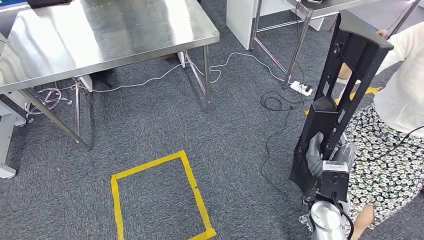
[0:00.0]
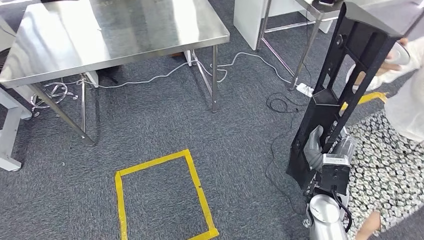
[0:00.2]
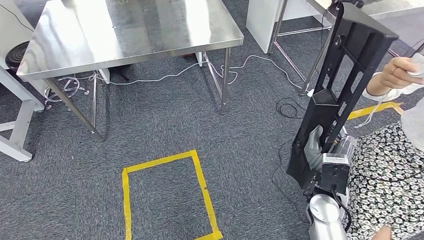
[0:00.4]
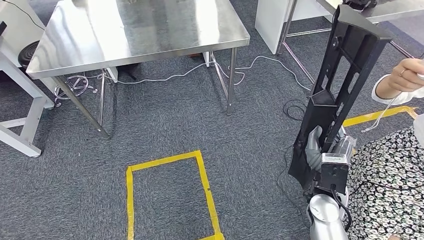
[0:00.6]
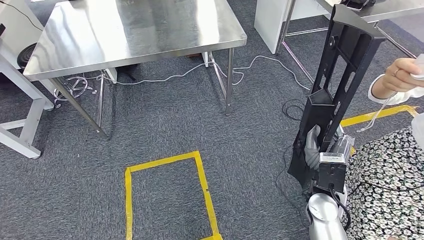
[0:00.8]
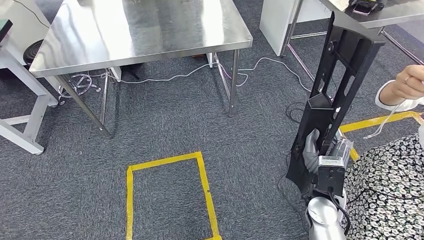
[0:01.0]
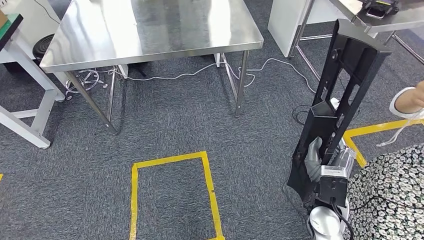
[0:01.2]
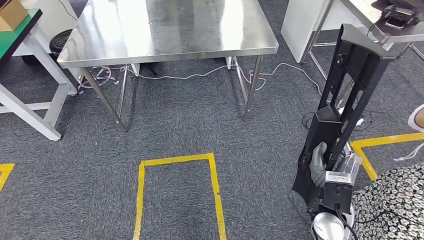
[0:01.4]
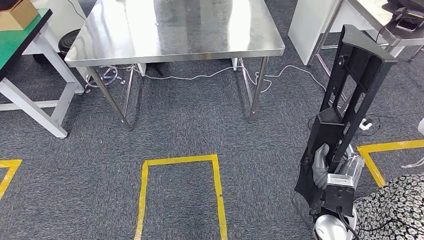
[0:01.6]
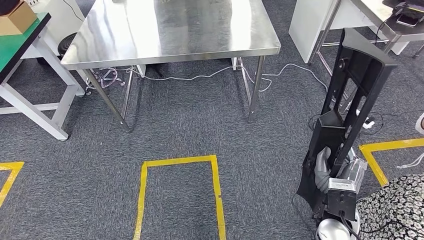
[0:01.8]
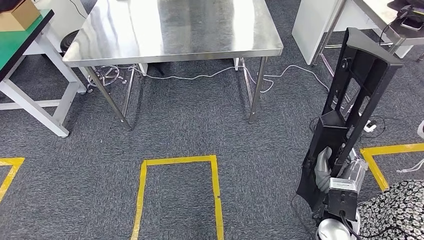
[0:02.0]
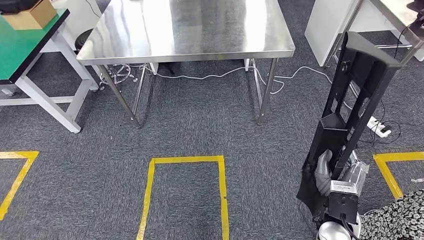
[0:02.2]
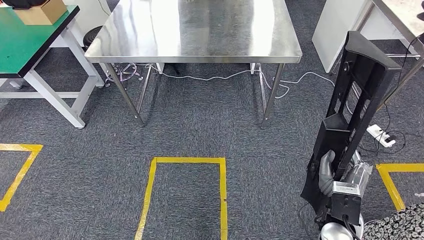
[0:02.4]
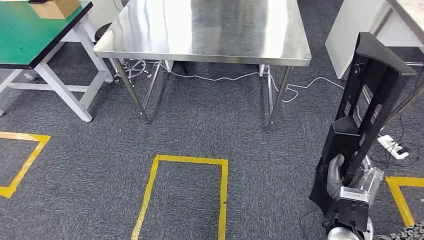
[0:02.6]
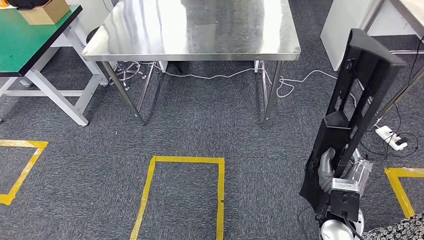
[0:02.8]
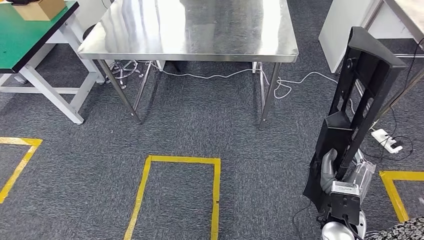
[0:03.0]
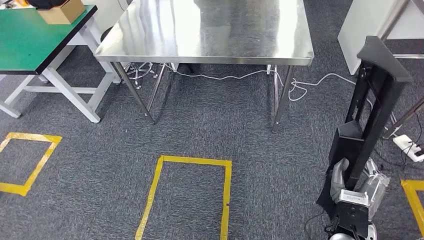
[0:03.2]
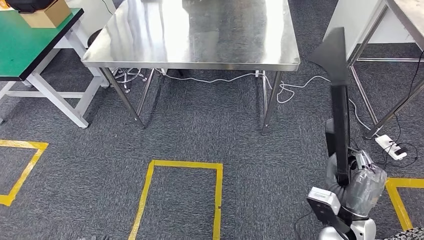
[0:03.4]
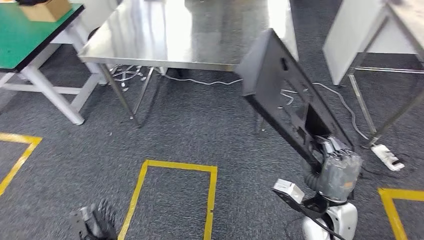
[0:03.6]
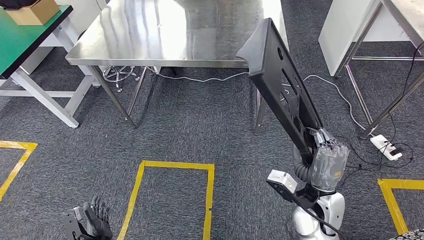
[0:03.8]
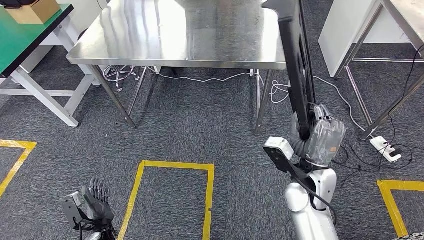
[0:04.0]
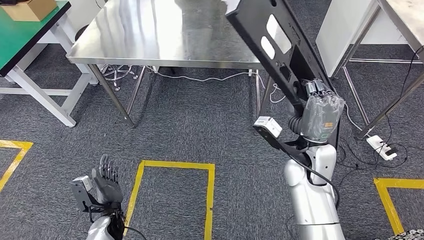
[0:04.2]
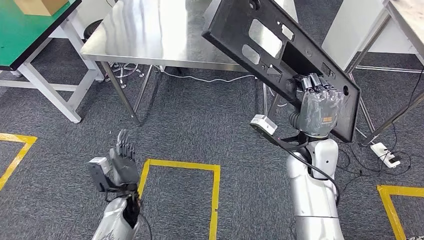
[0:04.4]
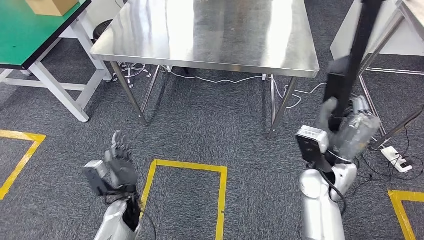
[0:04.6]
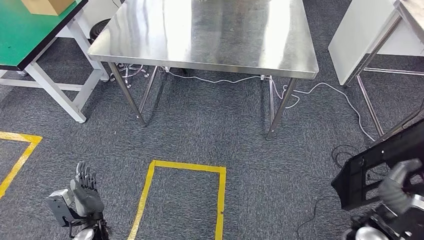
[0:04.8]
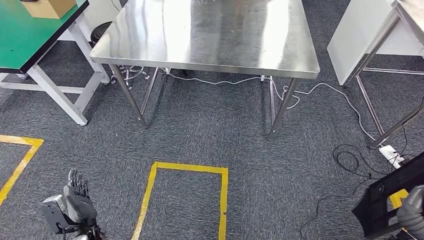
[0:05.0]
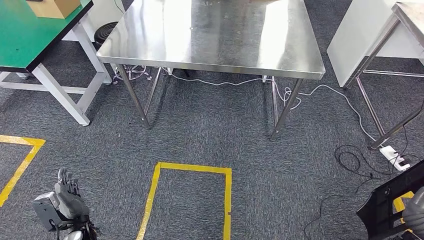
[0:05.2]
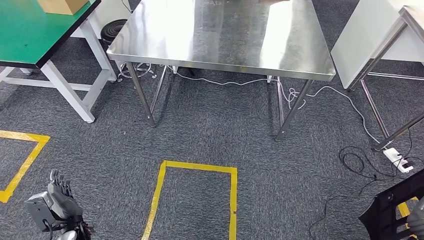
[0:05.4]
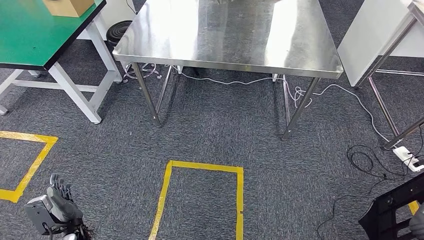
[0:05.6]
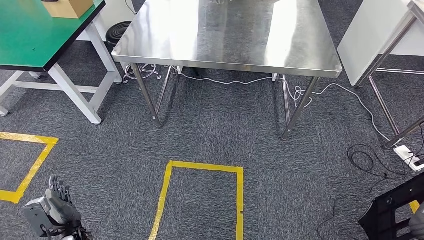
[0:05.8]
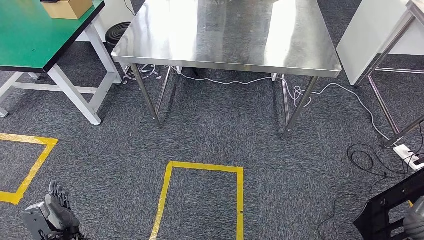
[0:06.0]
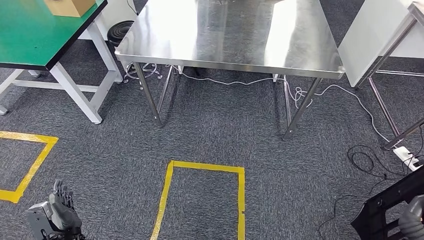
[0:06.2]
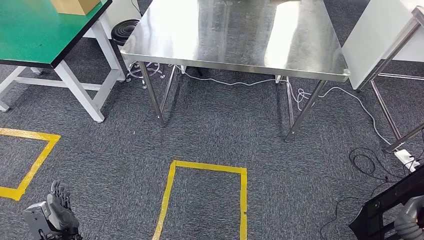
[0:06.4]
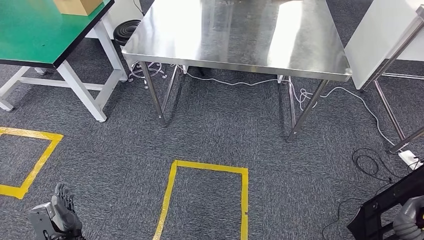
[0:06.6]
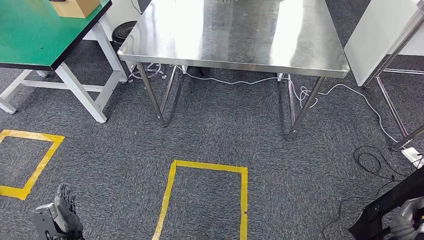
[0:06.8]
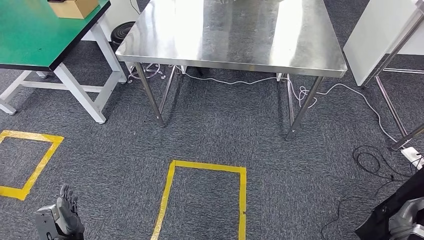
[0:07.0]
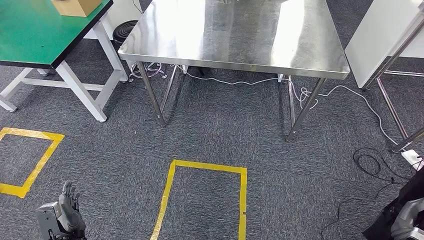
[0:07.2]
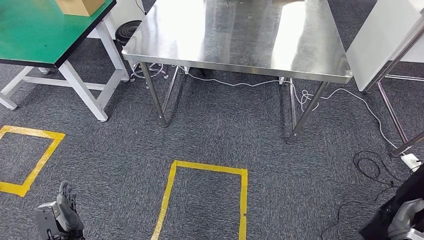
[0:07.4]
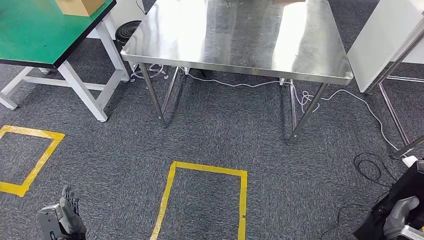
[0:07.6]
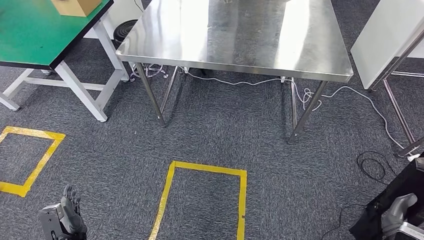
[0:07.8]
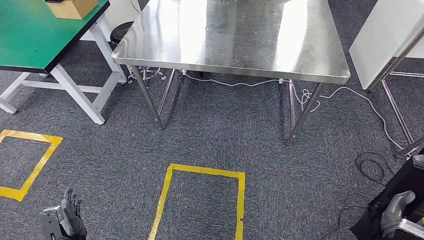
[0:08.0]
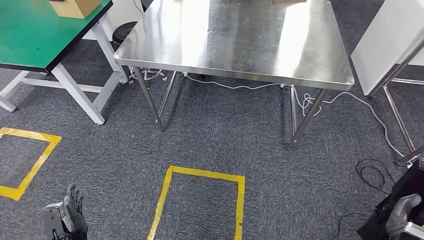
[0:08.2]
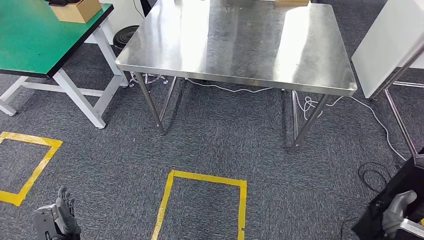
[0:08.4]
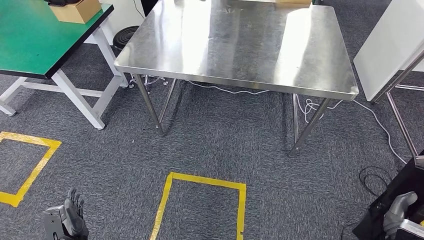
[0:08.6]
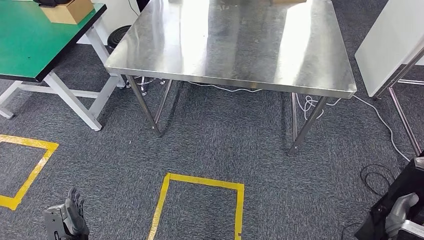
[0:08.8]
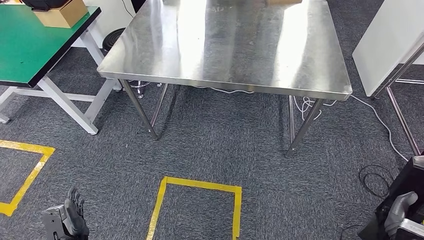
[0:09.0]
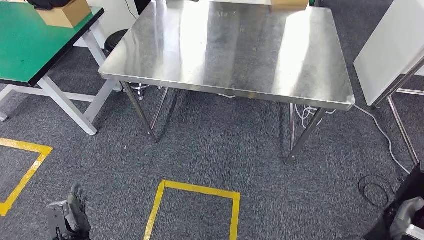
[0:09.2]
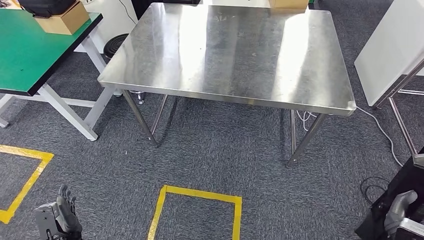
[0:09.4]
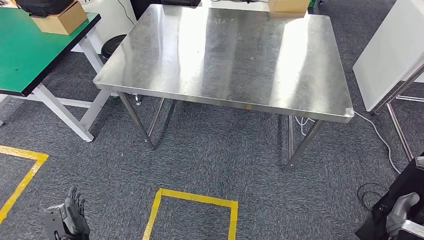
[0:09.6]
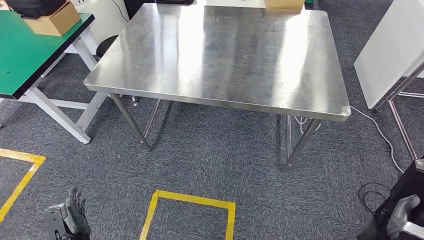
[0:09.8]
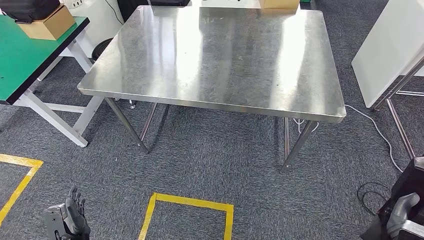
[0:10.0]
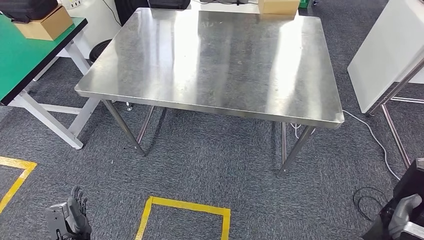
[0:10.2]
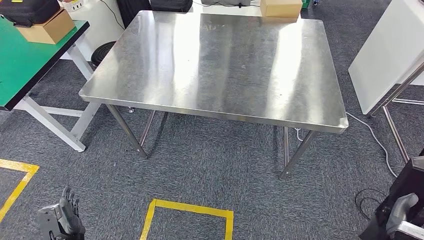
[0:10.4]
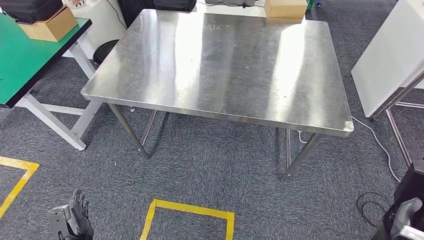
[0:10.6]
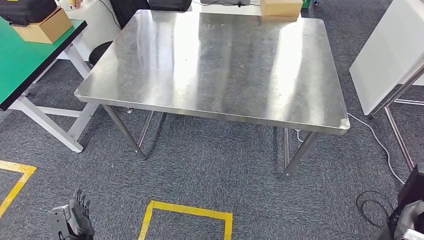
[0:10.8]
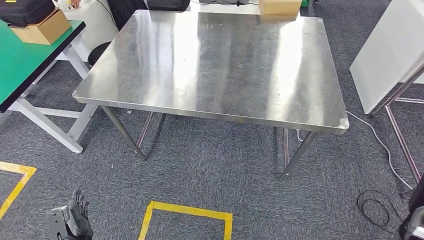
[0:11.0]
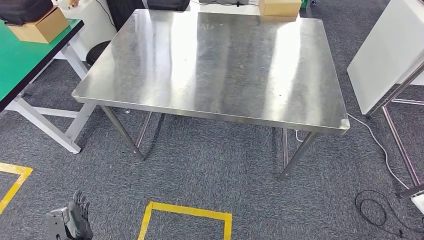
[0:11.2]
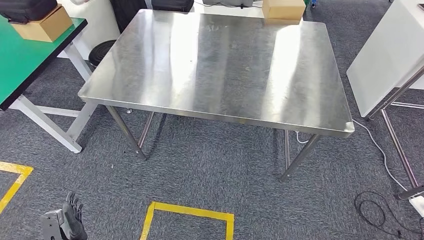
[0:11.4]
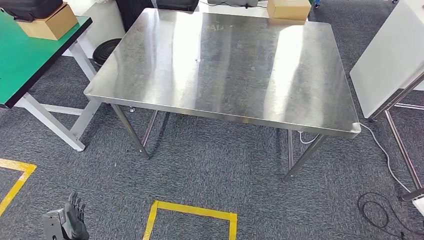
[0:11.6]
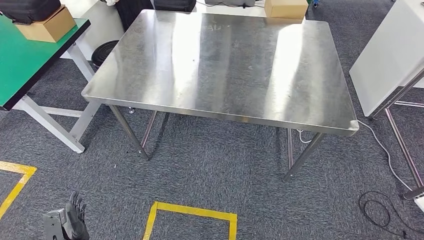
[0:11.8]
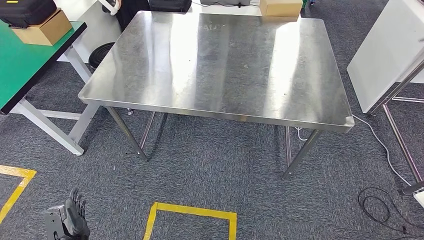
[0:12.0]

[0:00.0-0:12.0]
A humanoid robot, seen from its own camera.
0:10.4 to 0:12.0: The right hand is displaced to the right and upward by some 15 cm.

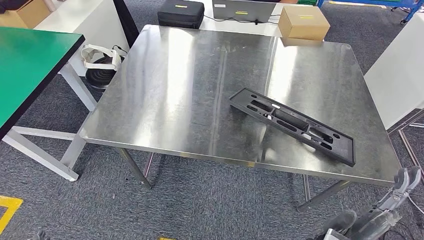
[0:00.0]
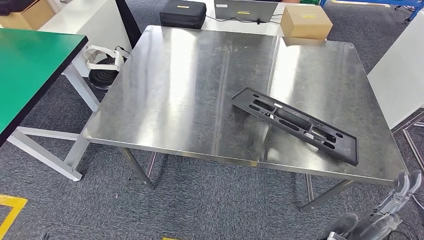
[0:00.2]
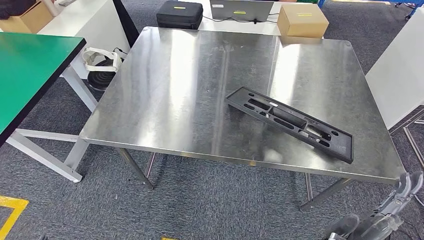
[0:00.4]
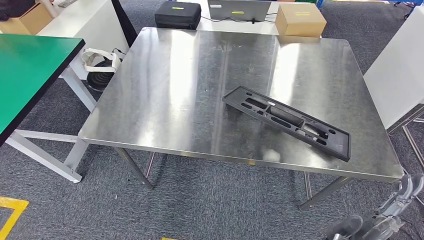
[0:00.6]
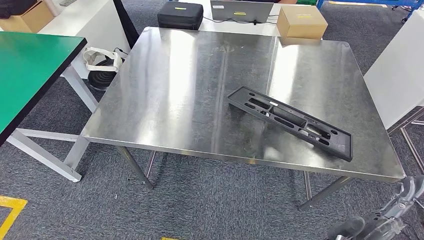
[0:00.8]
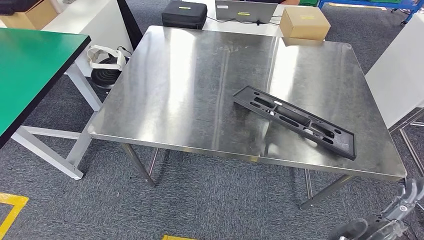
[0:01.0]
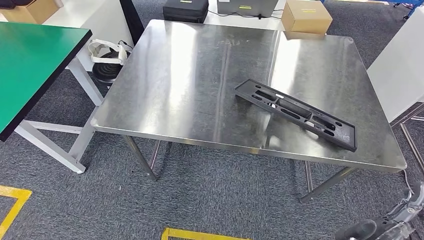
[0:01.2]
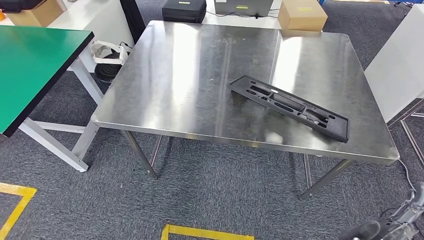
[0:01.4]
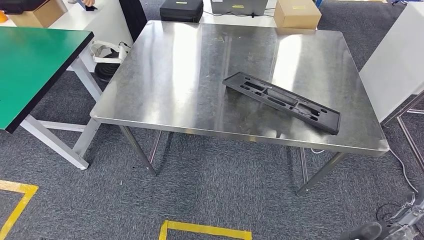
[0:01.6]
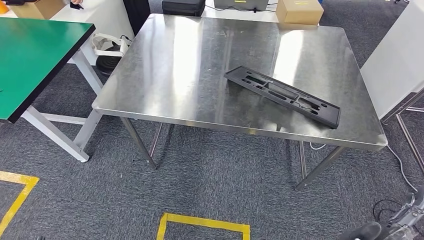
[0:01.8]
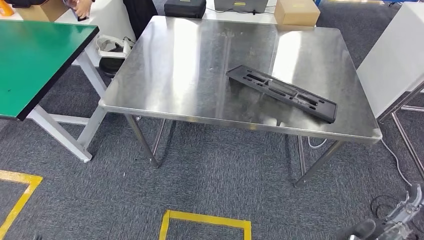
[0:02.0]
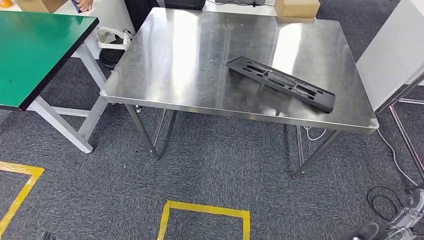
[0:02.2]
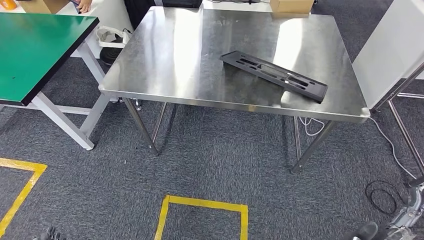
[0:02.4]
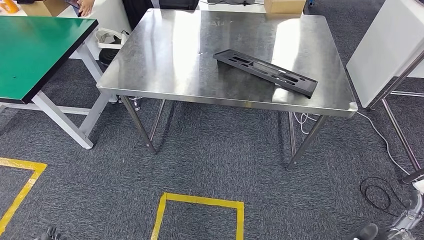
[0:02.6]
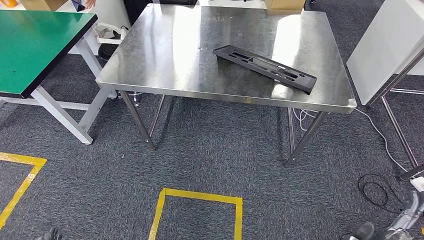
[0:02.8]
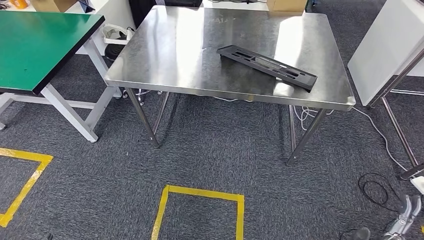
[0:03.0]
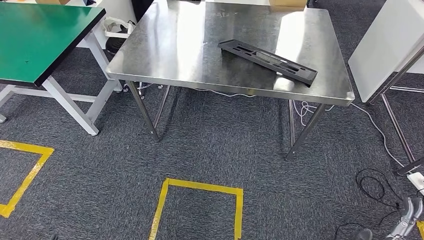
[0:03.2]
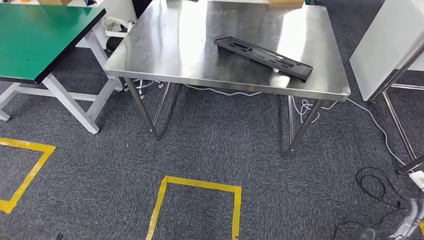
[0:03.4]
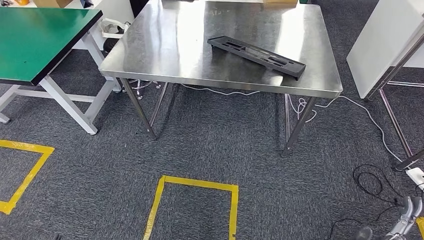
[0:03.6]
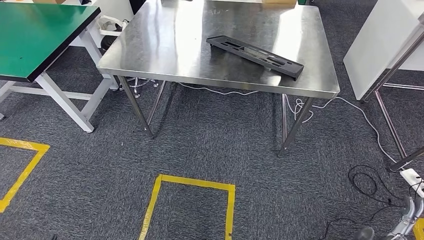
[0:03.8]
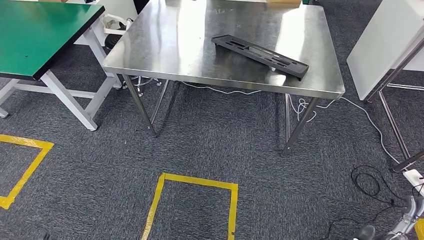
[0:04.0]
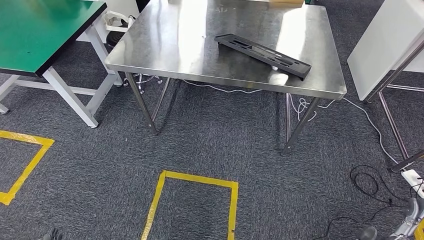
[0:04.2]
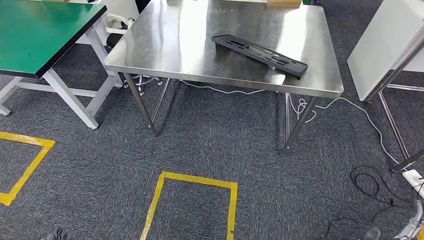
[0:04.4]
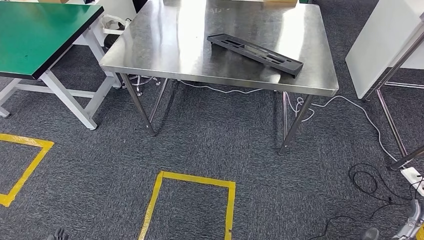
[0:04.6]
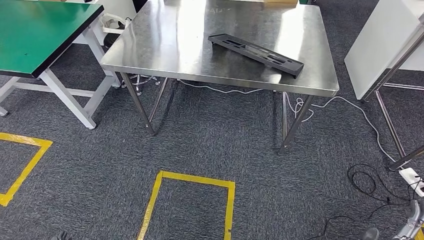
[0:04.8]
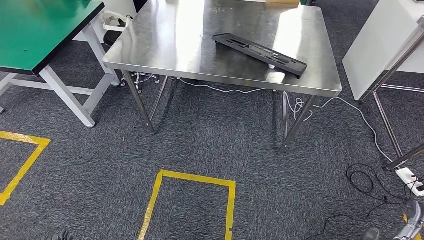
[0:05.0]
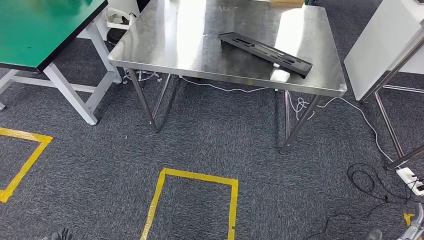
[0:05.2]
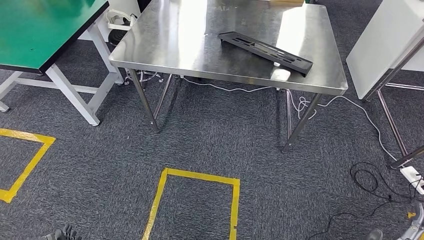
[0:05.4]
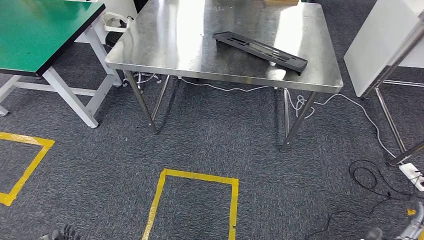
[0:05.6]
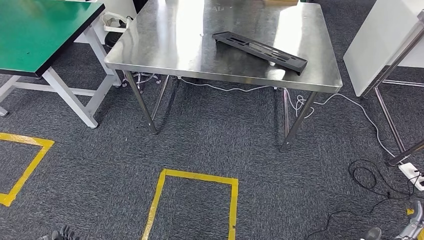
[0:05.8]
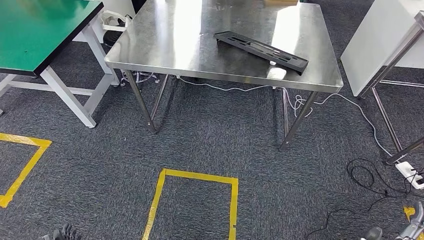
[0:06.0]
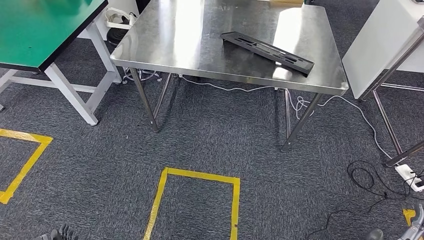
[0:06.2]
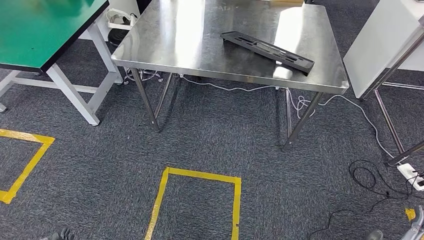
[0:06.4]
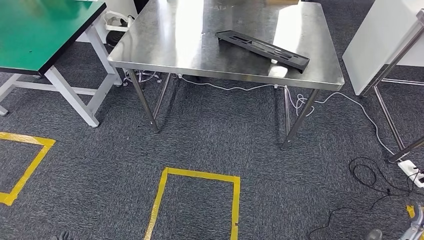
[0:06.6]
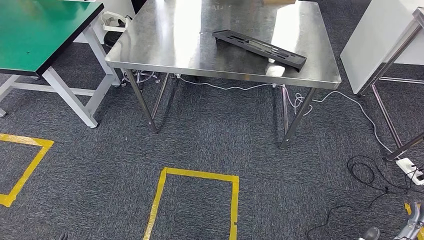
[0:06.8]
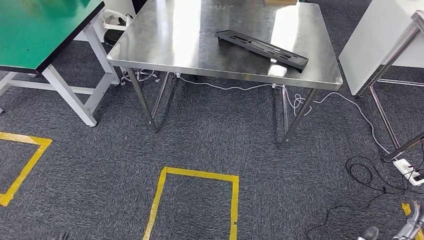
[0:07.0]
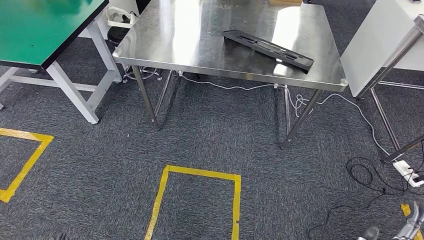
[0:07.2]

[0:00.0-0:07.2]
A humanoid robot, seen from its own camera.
Step, 0:00.0 to 0:02.2: Insert the large material into the corresponding slot on the workbench.
0:04.4 to 0:07.2: The hands move only a little.
